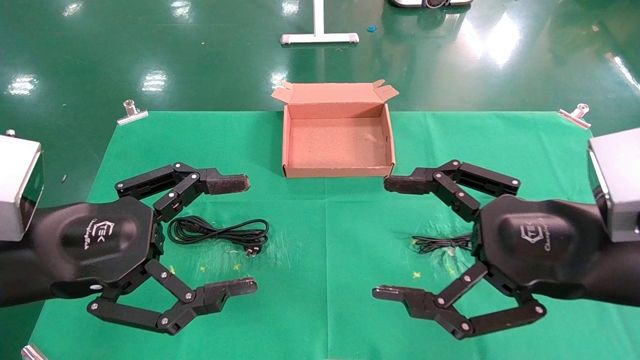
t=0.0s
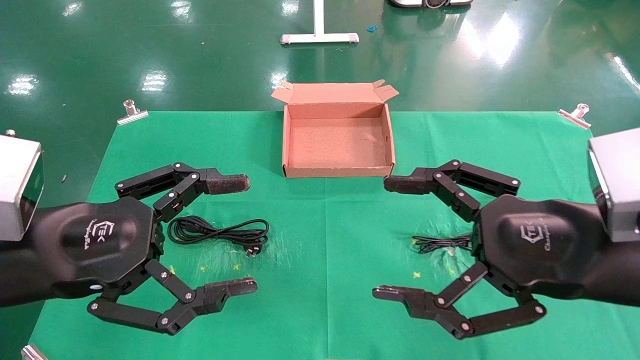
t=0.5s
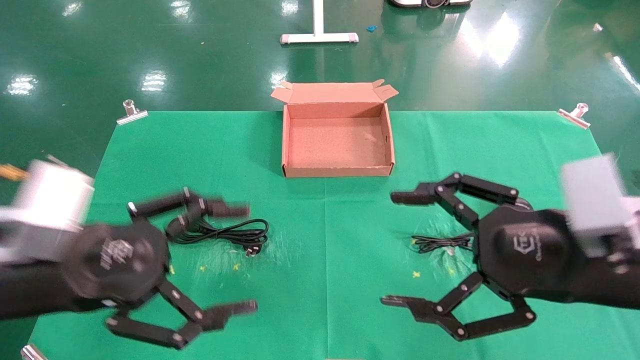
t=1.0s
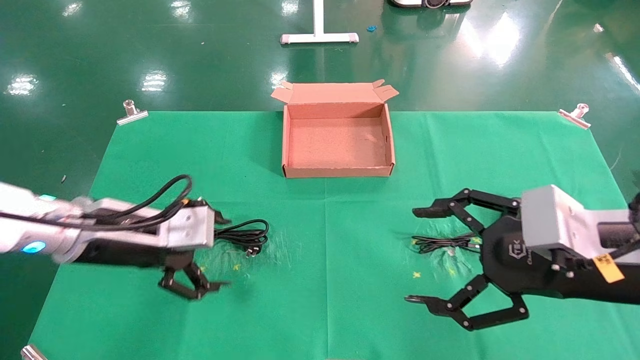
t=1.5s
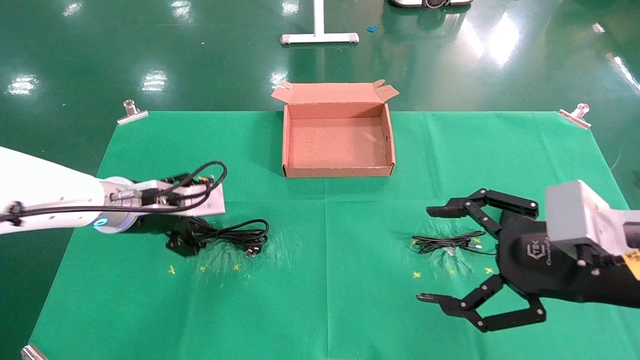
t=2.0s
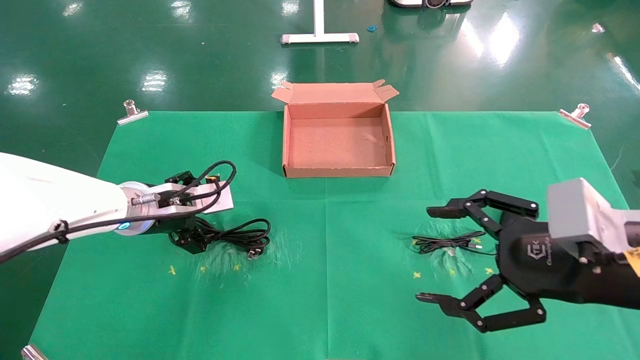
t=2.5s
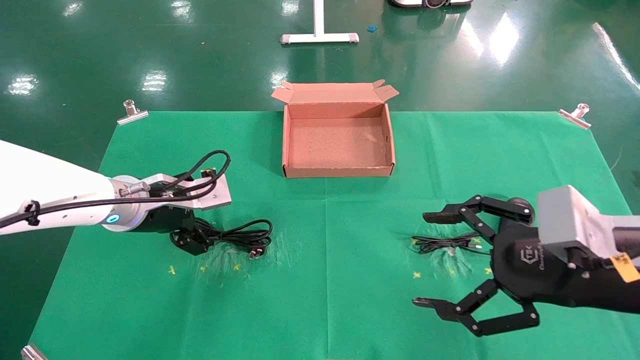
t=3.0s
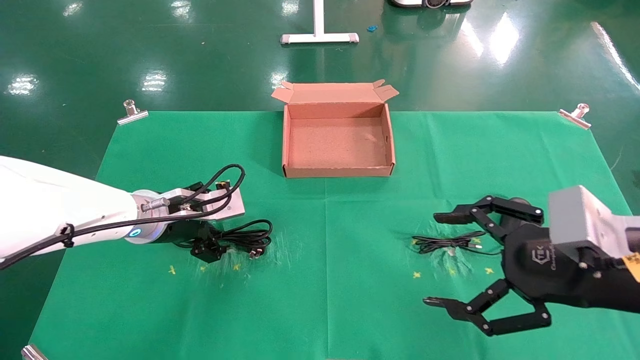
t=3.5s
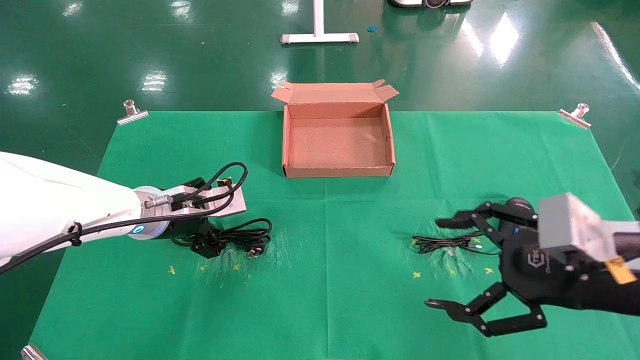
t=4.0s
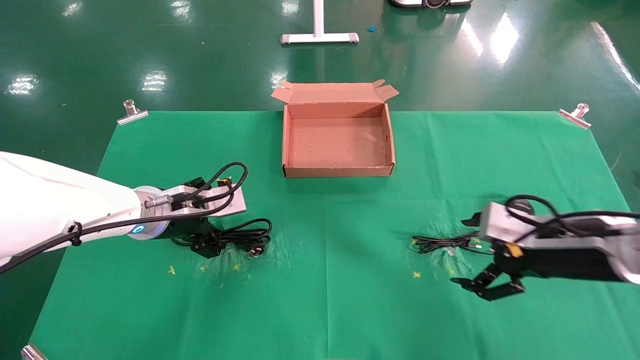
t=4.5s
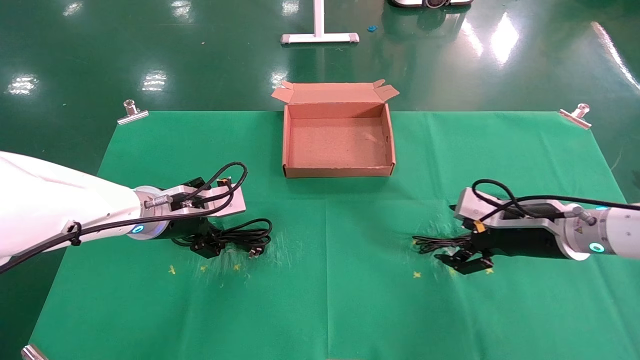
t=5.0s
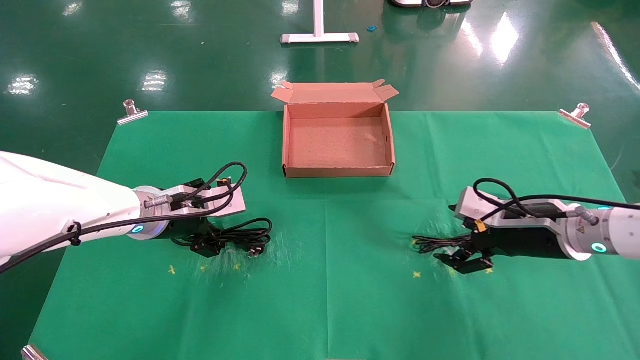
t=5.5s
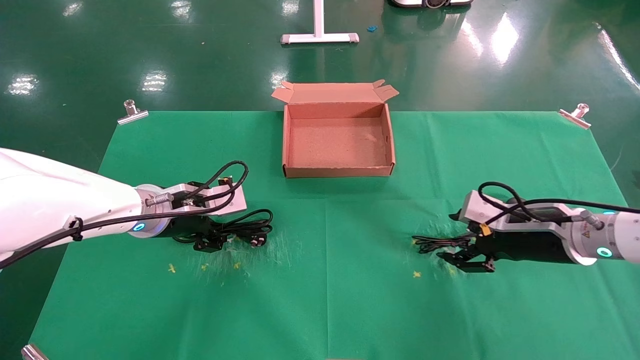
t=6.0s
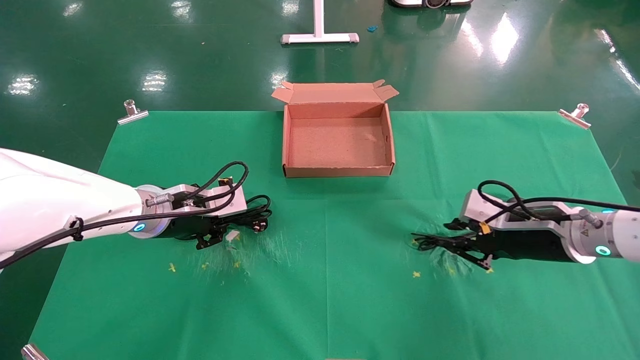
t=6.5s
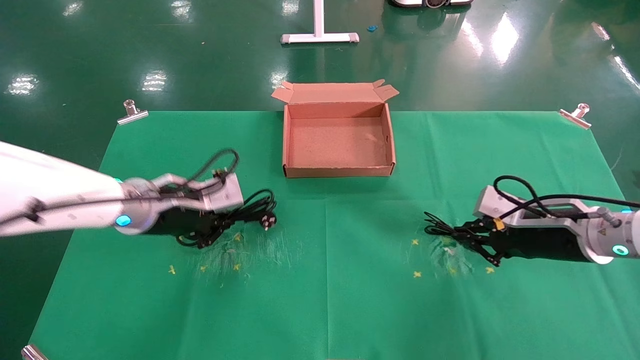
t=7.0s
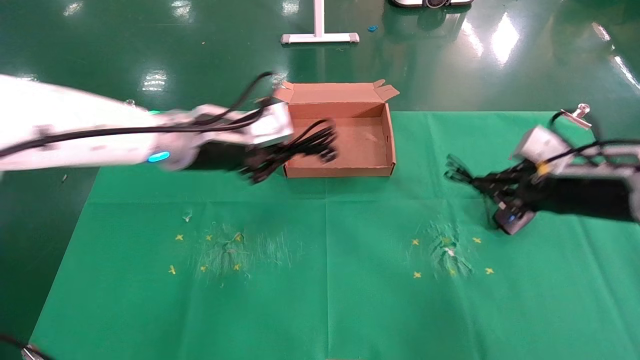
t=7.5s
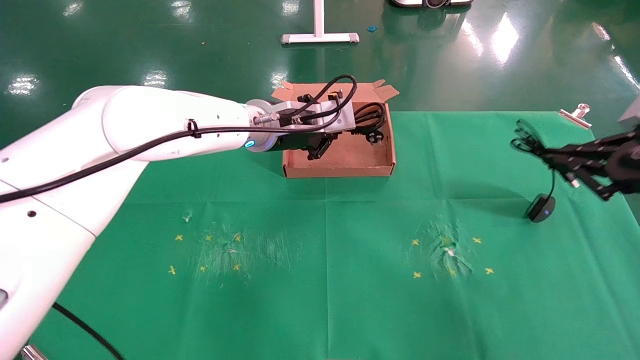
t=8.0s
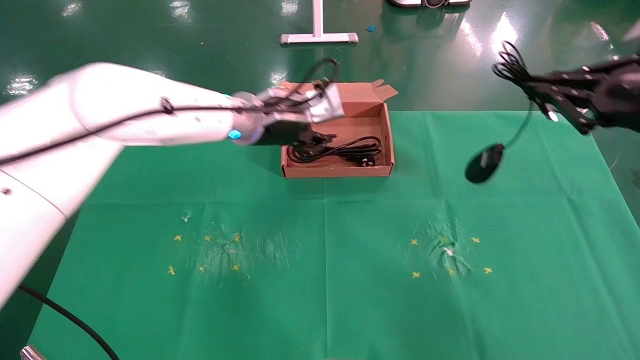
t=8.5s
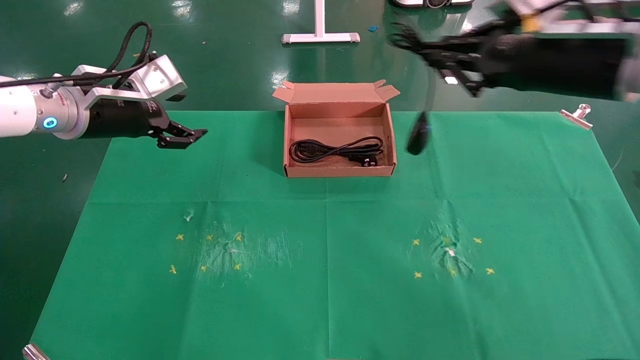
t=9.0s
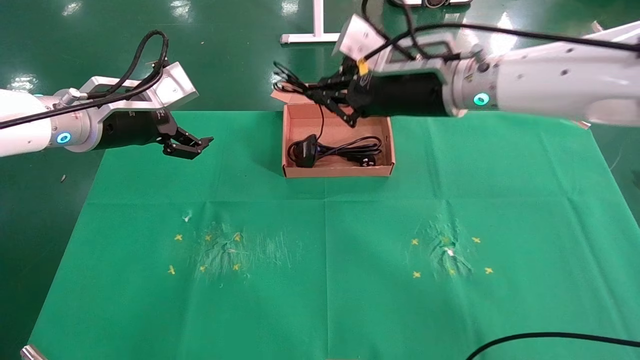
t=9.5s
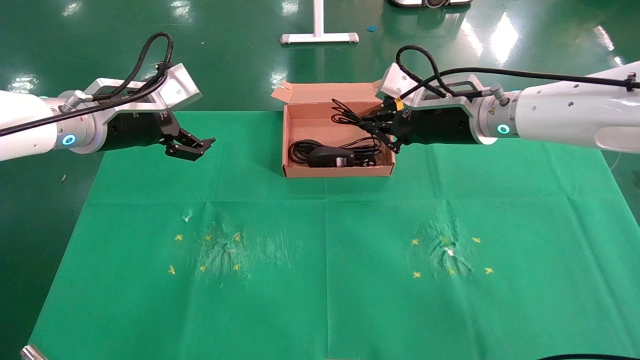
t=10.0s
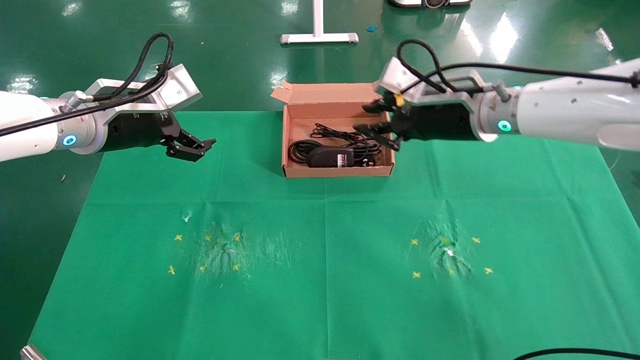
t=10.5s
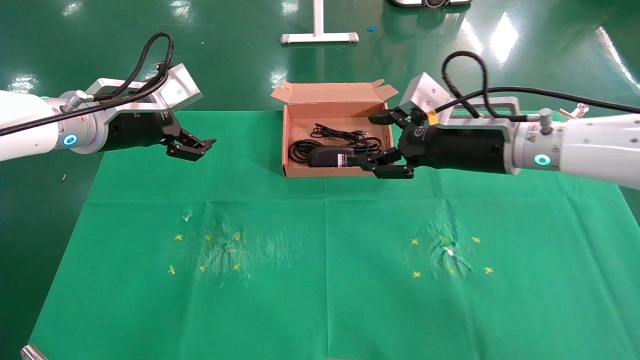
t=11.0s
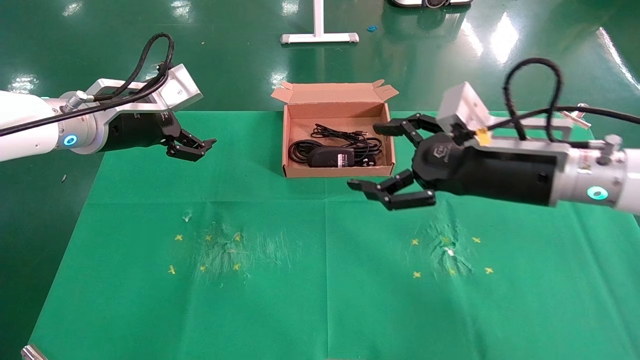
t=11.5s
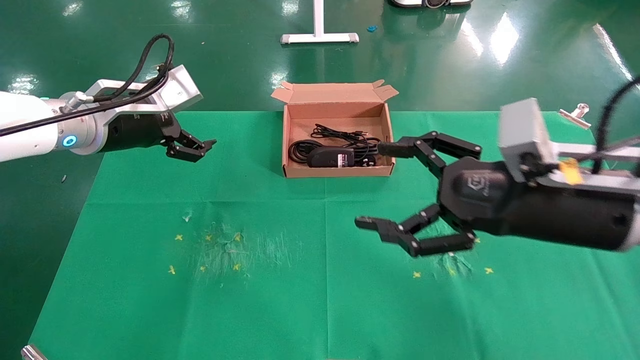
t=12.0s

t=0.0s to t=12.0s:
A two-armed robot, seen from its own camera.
Task of the whole recording: grasp data cable left put into box grasp mouse right put into box.
Step, t=1.5s to t=7.0s: Simultaneously pick up the mouse and power cord from the accessory packaging area.
Step, t=7.5s to t=10.0s: Place the mouse and power cord into the box.
t=0.0s to t=2.0s: The left gripper goes roughly 15 cm forward.
t=2.0s to t=4.0s: There are only small adjustments of the grippers.
t=4.0s to t=6.0s: The right gripper shifts approximately 15 cm forward.
t=6.0s to t=8.0s: The left gripper is displaced to the right, upward and forward by approximately 20 cm, and closes up; the right gripper shifts roughly 20 cm upward, to the right and backward, and closes its fingers.
t=8.0s to t=10.0s: The left gripper heads to the left, covering roughly 20 cm, and opens its fingers. The right gripper moves to the left and forward, about 25 cm.
t=10.0s to t=12.0s: The right gripper moves backward, some 15 cm, and opens up.

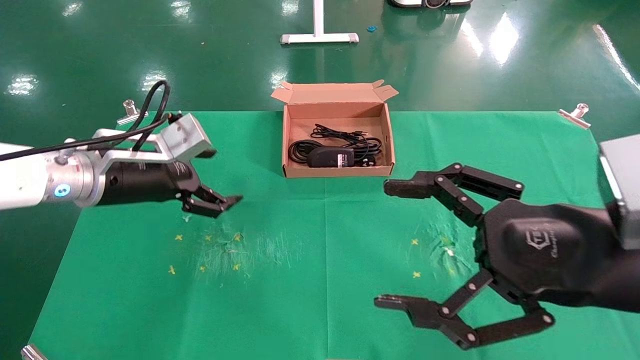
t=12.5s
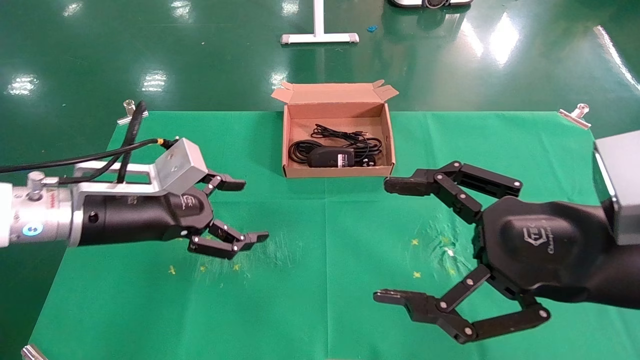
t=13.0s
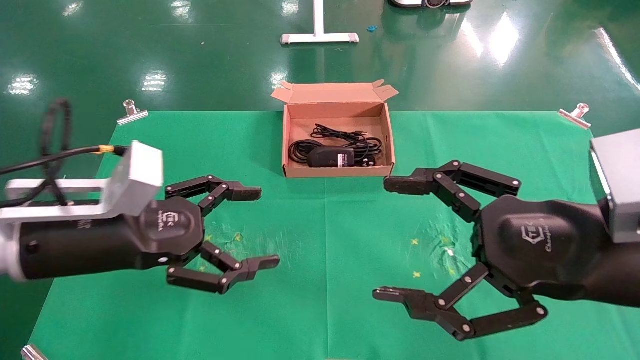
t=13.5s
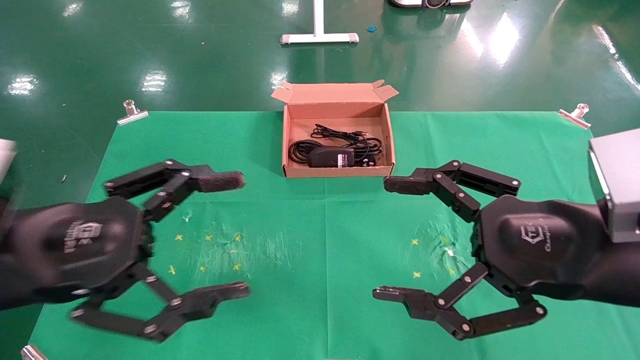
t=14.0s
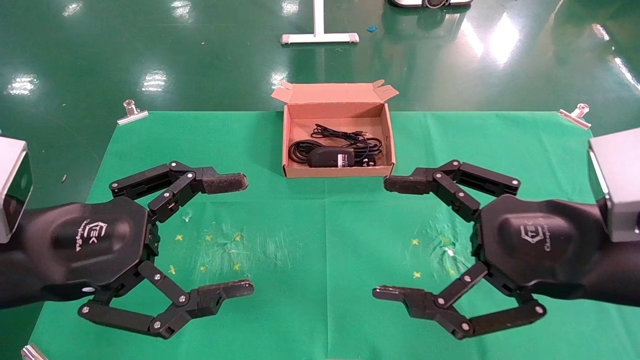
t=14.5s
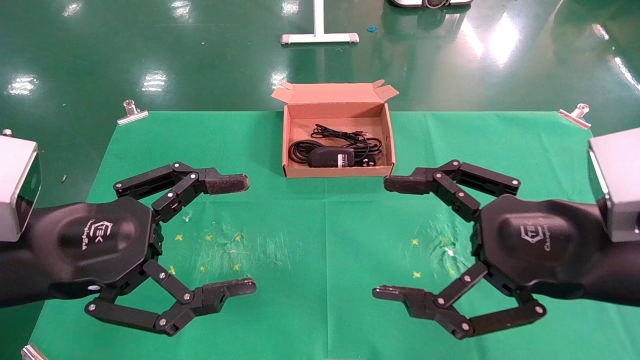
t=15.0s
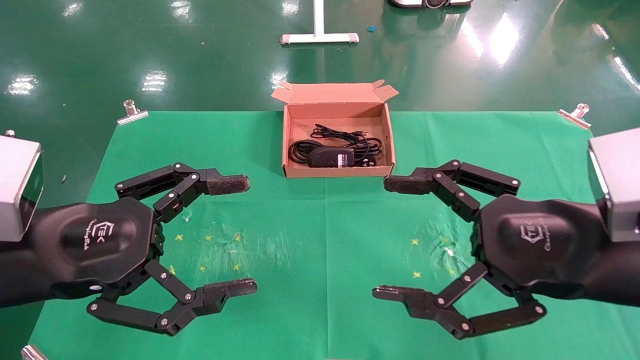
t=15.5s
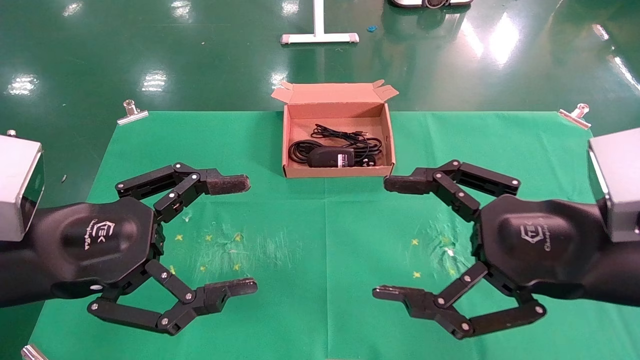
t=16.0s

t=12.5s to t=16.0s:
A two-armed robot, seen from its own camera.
Task of the whole recording: grasp data cable left put into box grasp mouse right put into box.
t=12.5s to t=14.5s: The left gripper is displaced backward by approximately 15 cm.
t=14.5s to t=16.0s: Both grippers stay put.
